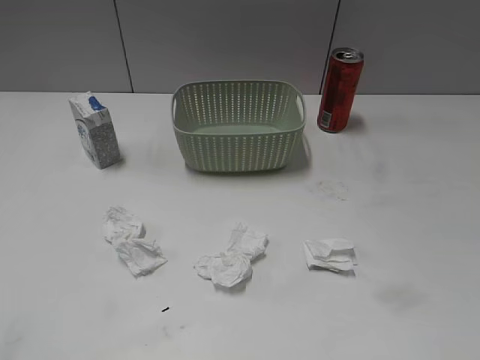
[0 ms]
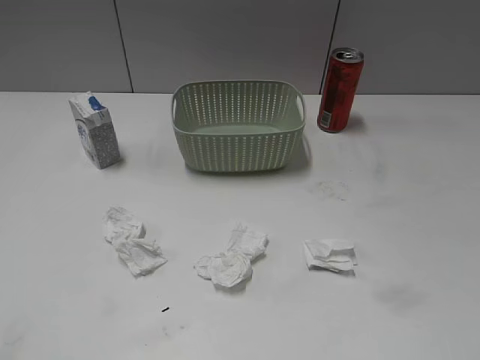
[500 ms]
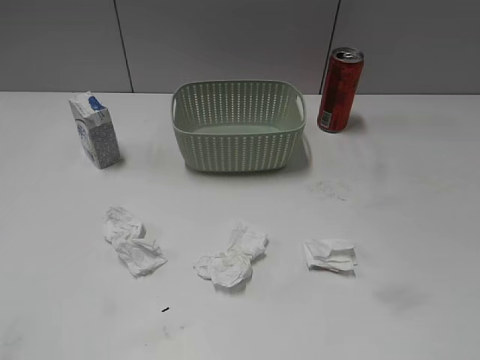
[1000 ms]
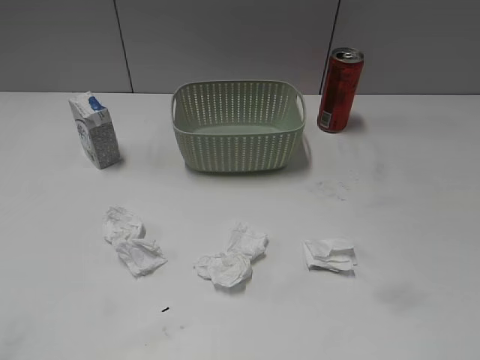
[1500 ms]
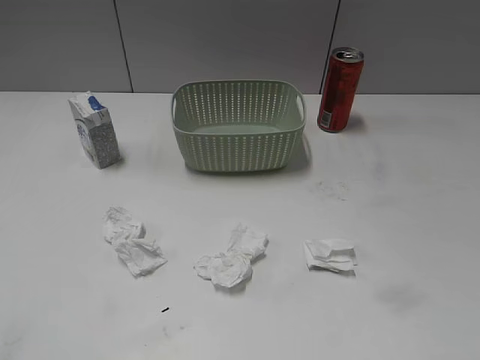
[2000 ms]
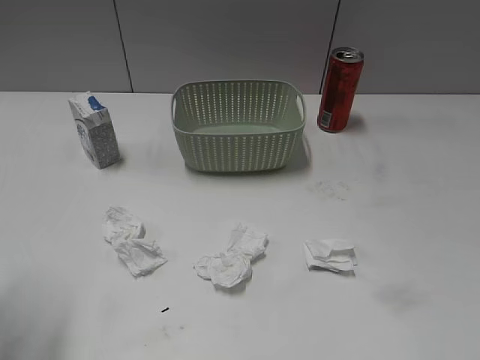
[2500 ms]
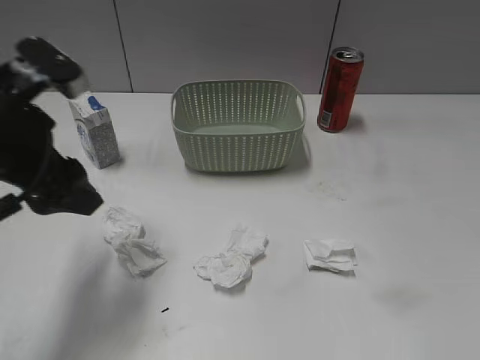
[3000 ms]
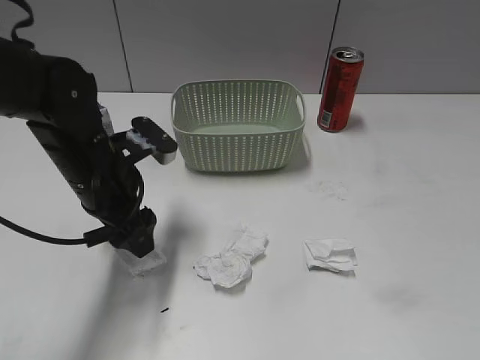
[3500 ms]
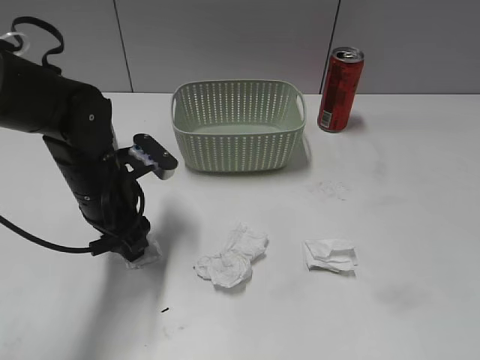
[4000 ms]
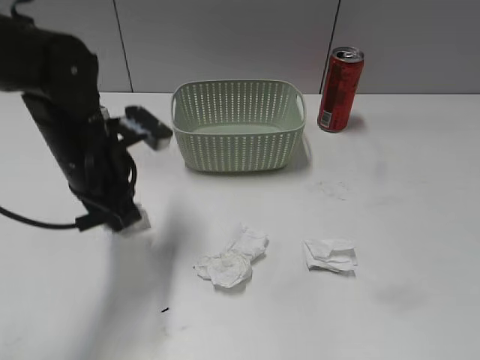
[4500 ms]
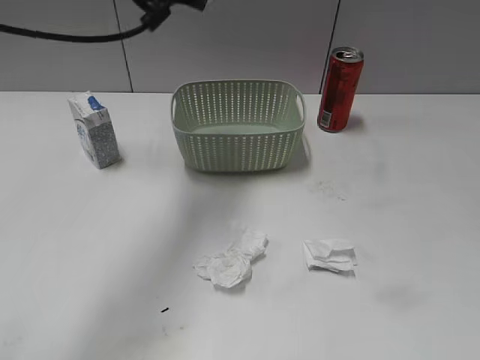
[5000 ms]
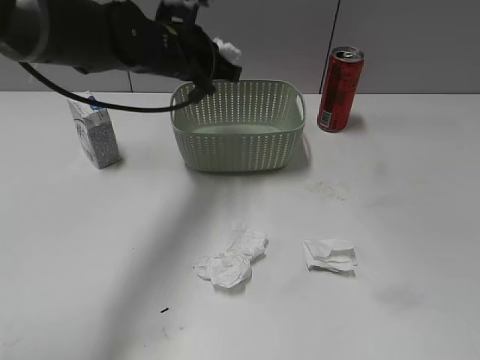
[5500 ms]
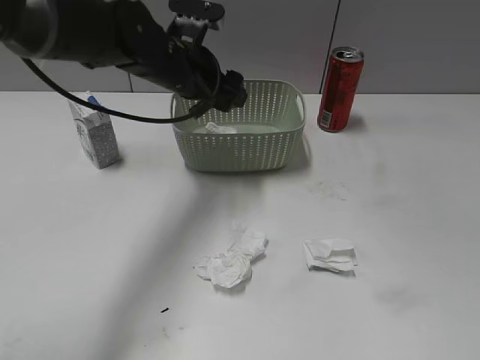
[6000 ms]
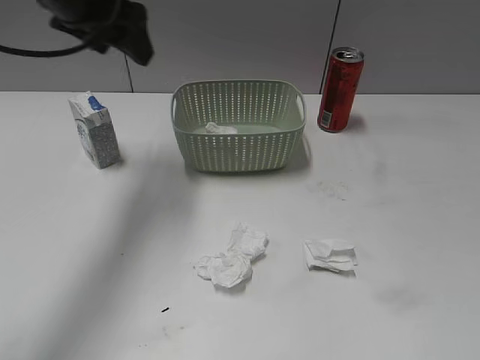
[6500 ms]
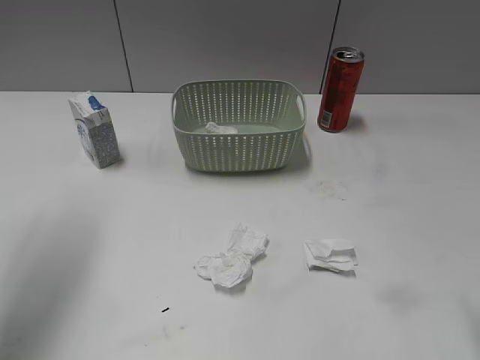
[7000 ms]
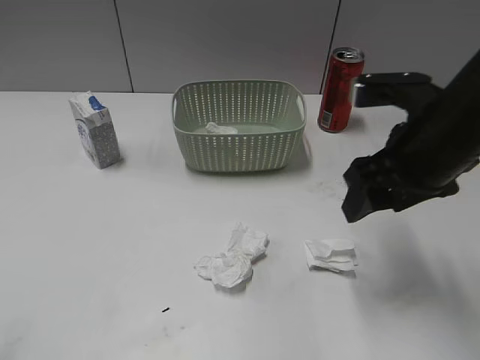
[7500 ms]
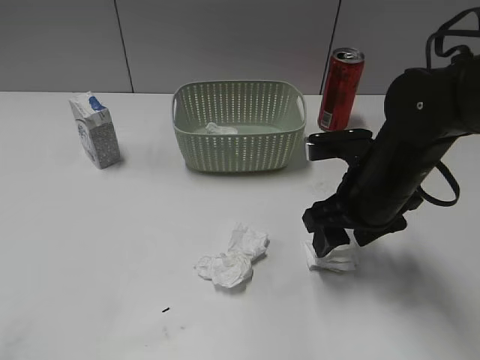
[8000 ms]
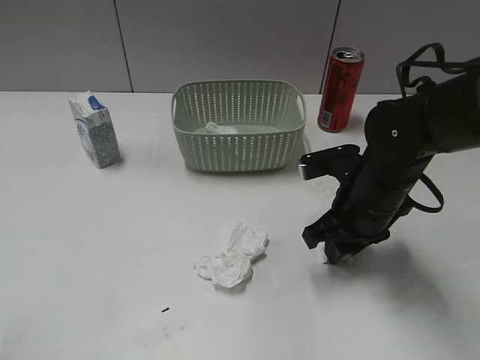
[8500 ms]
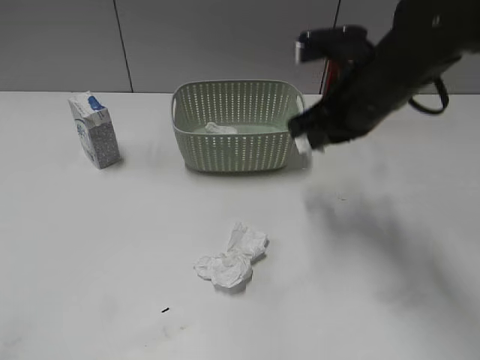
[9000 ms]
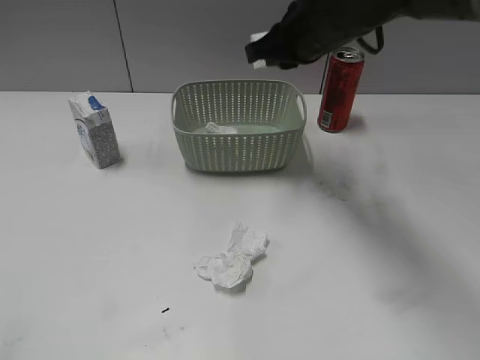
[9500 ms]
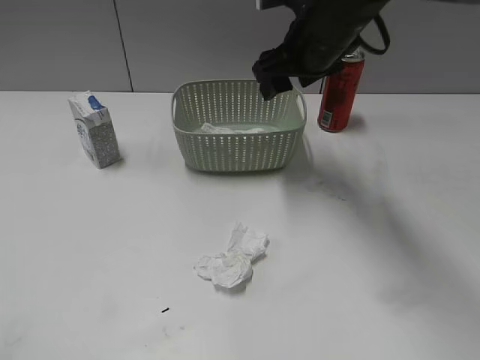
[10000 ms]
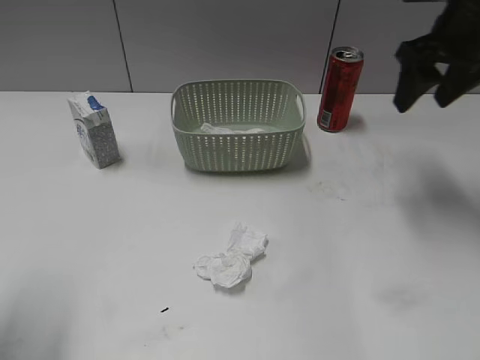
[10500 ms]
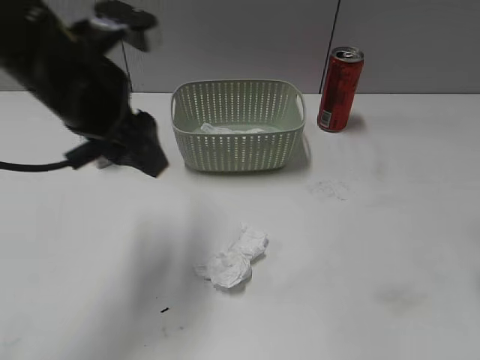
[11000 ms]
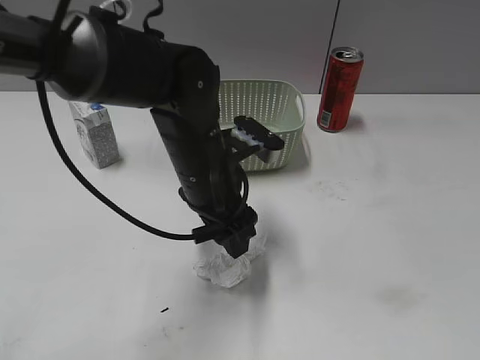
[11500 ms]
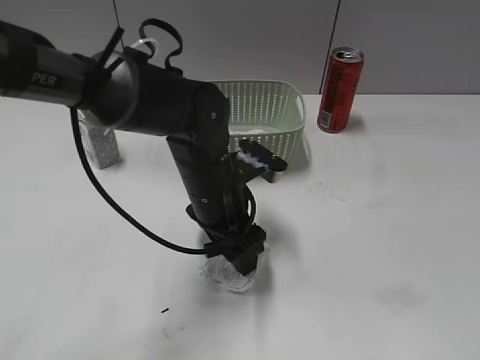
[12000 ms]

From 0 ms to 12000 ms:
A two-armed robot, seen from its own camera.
Step, from 2500 ms to 4000 ms: Grasp the waste paper with left gripper.
Step, from 4500 ms to 5500 ms: Place the waste paper in the basket with left gripper.
Step, from 6000 ms to 8500 ms: Grasp the waste paper with right gripper.
Step, from 9000 ms to 9500 ms: Place the waste paper in the basket with right gripper.
From 2000 ms to 4000 ms: The left gripper moves forward, downward and to the right, approximately 35 cm, and closes.
From 4000 ms to 6000 ms: The left gripper travels forward, upward and to the right by approximately 15 cm, and opens up.
From 6000 ms to 8000 ms: The right gripper moves forward, to the left and downward, about 35 cm. The left gripper shifts some 50 cm backward and to the left.
From 8000 ms to 10000 ms: The right gripper moves up and down over approximately 15 cm, changing direction 2 times, and closes and opens again.
From 10000 ms to 12000 ms: The right gripper is displaced backward and to the right by approximately 40 cm. The left gripper shifts roughly 40 cm to the right, forward and downward.

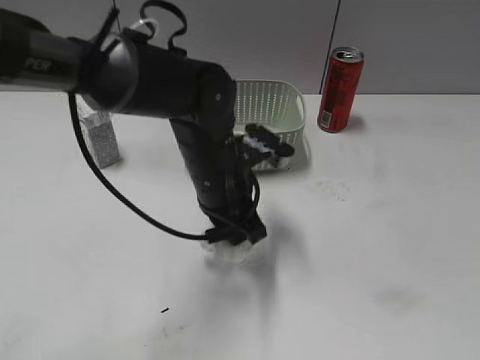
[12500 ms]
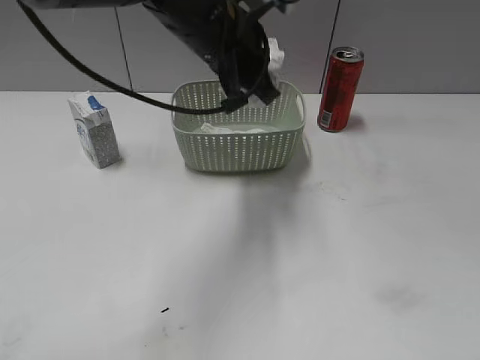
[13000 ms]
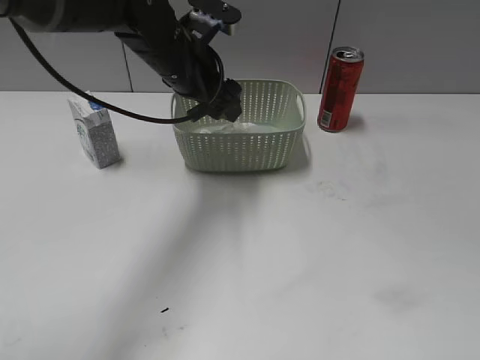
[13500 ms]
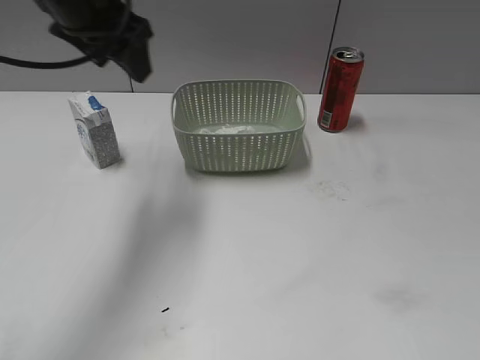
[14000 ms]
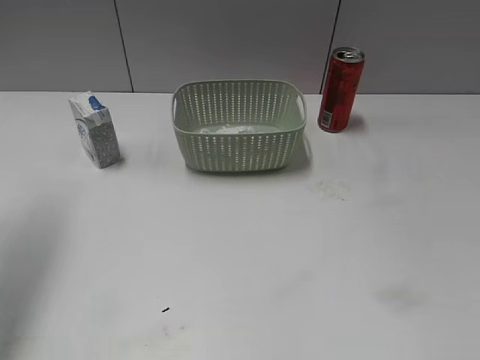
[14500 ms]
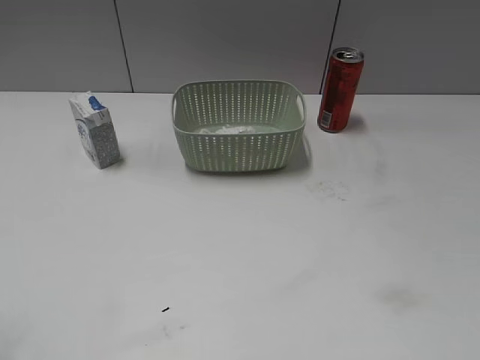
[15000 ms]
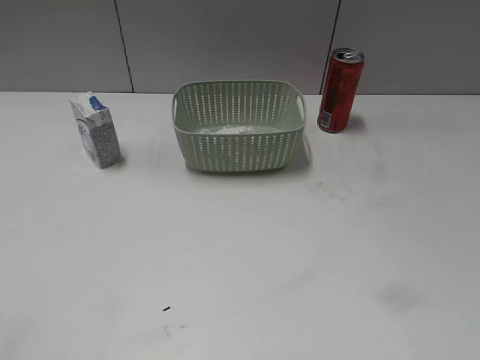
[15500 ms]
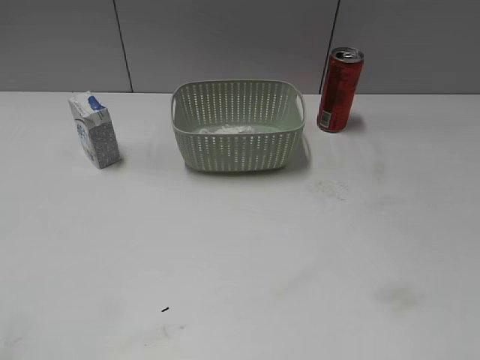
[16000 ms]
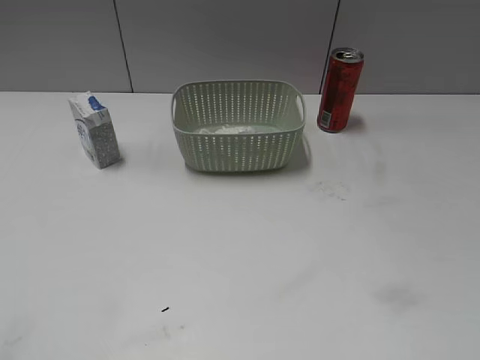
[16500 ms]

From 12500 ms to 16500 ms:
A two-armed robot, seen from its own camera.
Step, from 13000 ms to 13500 ms: Place the waste paper in the basket with left gripper.
From 12500 ms to 14500 ms: The left gripper shifts roughly 35 cm to the left and upward, and opens up.
From 14500 ms to 16500 ms: The left gripper goes about 25 cm backward.

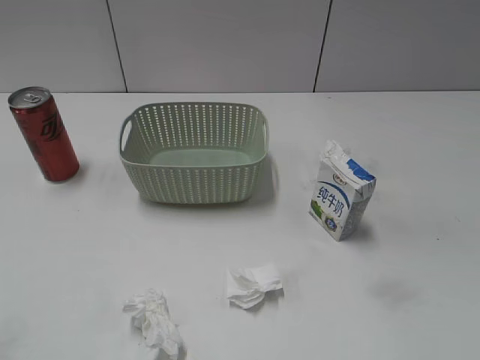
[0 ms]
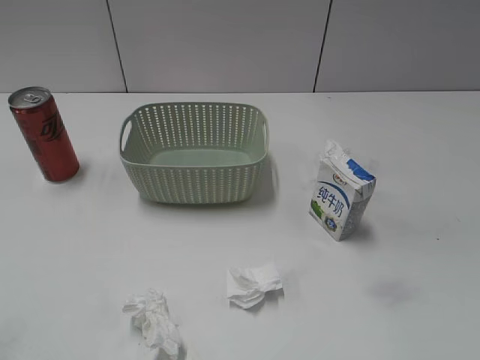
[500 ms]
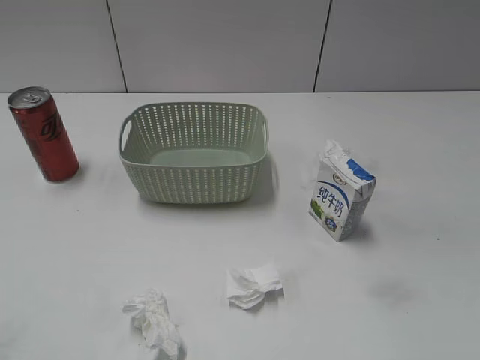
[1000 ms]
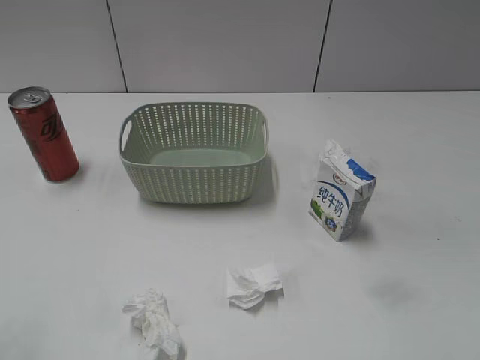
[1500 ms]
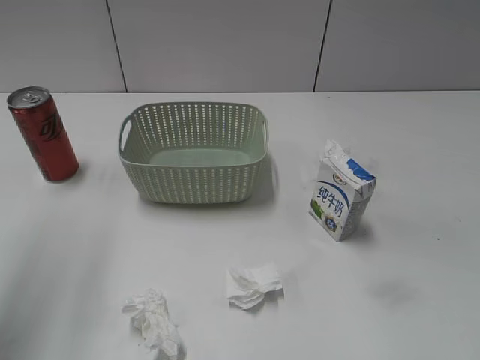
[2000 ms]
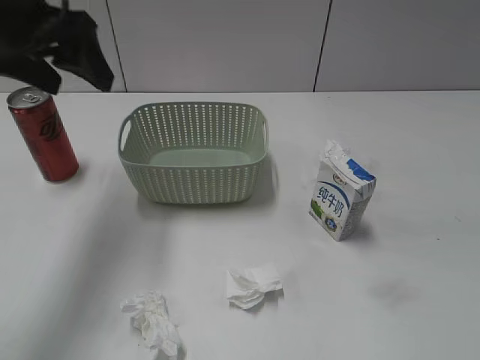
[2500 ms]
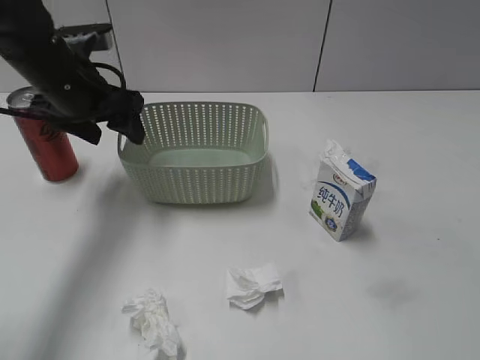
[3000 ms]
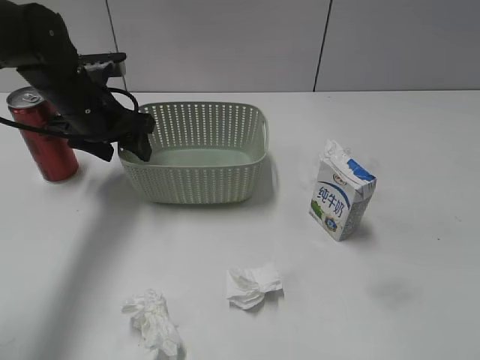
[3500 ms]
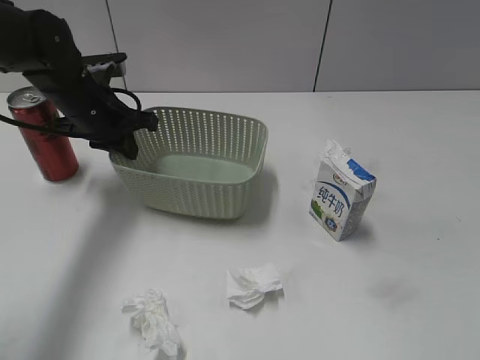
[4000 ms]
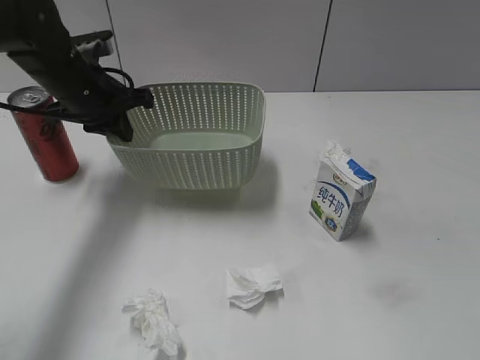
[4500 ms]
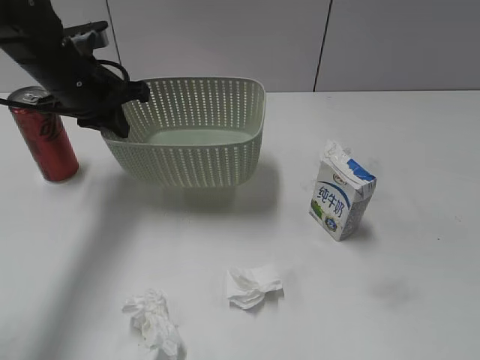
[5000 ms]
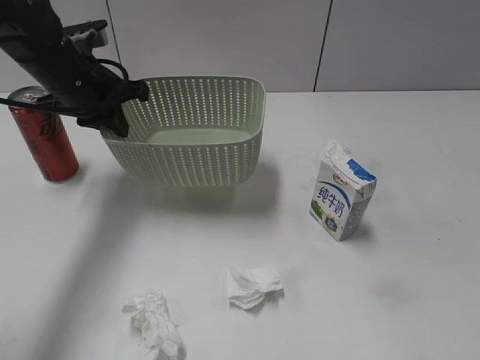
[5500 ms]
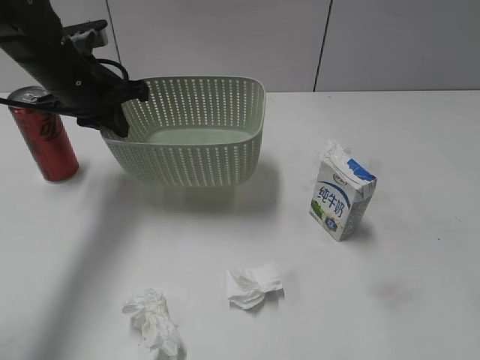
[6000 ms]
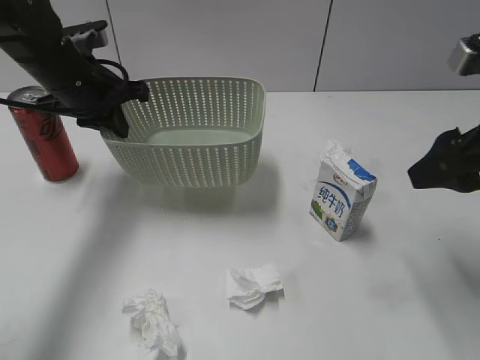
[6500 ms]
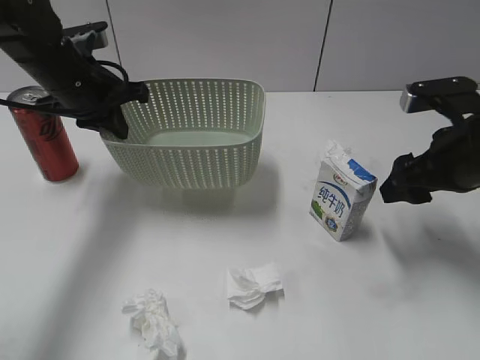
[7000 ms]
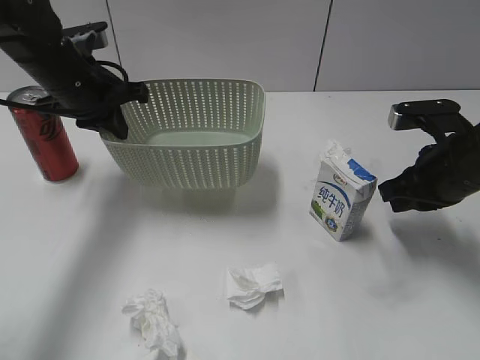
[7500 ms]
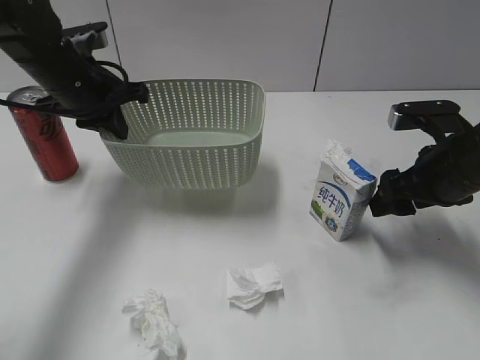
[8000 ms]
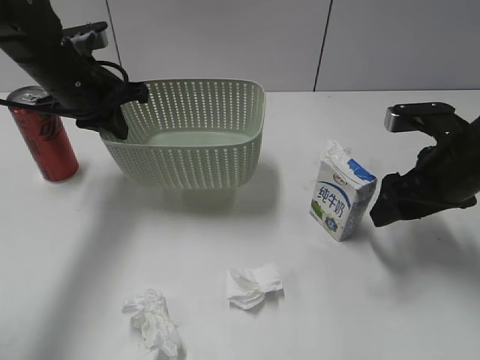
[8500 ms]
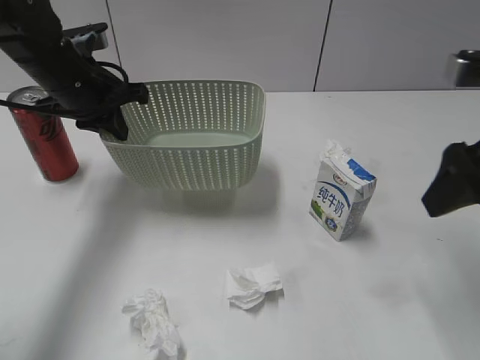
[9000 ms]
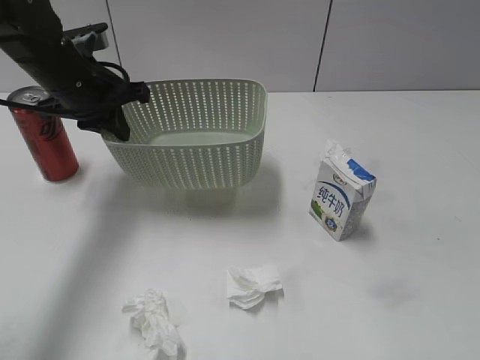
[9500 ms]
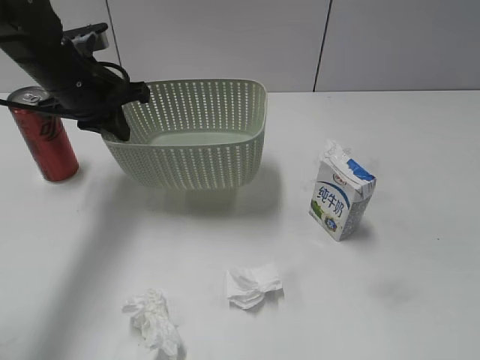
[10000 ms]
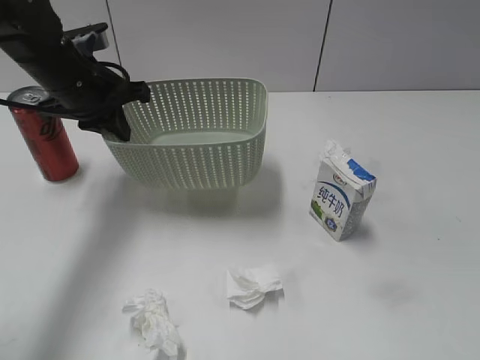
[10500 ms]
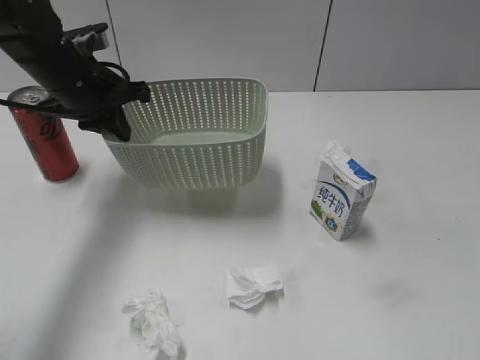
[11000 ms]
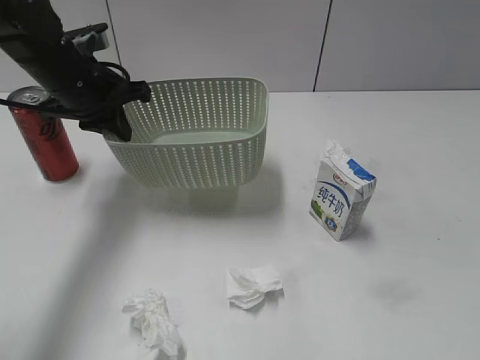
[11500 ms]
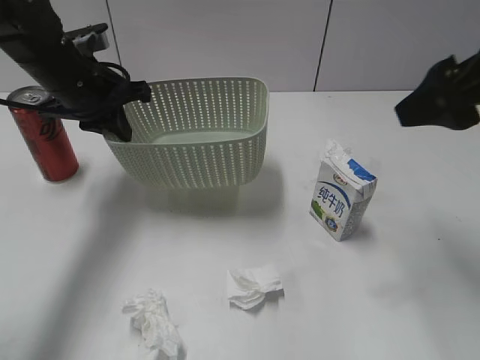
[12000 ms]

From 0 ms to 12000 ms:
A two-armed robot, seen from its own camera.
Step, from 2500 ms to 4000 ms: Grasp the basket with left gripper.
From 2000 ms to 4000 ms: The left gripper shifts approximately 30 cm downward, forward and to the right, and closes its fingers.
From 4000 ms to 6000 ms: The right gripper heads forward, covering approximately 10 cm.
From 6000 ms to 8000 ms: The right gripper goes some 25 cm forward and downward, and closes, then reopens.
From 8000 ms to 10000 ms: The right gripper is displaced backward and upward by some 35 cm.
From 10000 ms to 12000 ms: The right gripper moves forward, some 25 cm.
